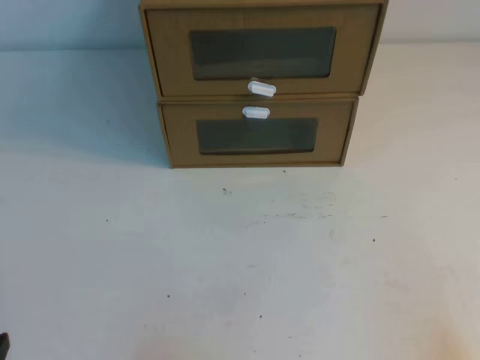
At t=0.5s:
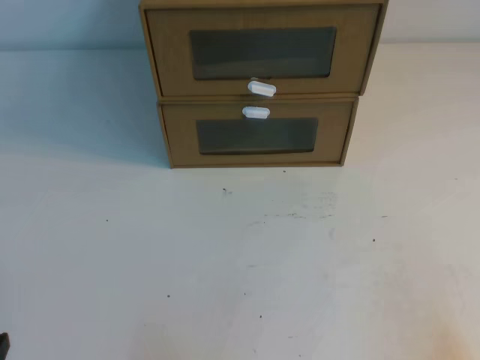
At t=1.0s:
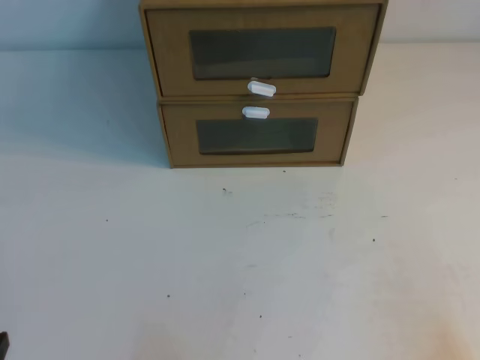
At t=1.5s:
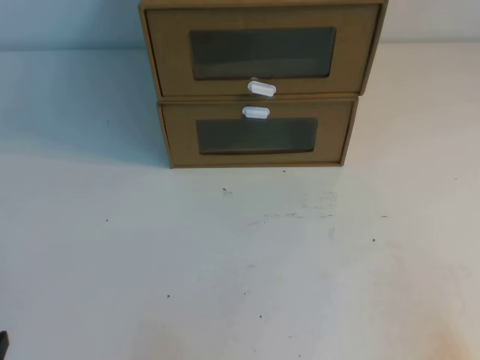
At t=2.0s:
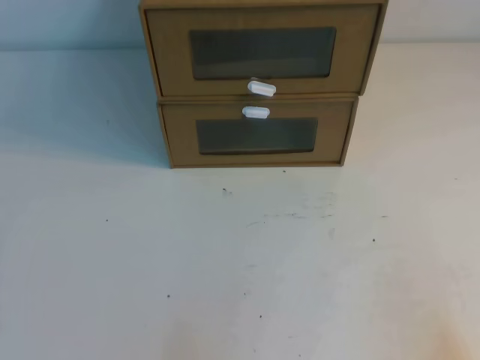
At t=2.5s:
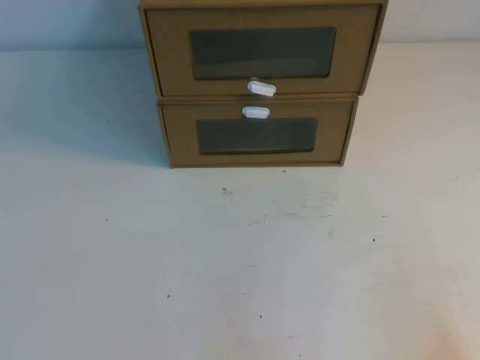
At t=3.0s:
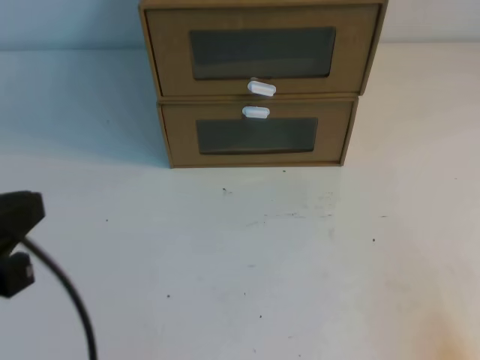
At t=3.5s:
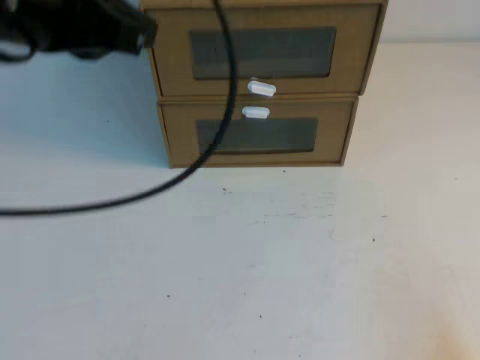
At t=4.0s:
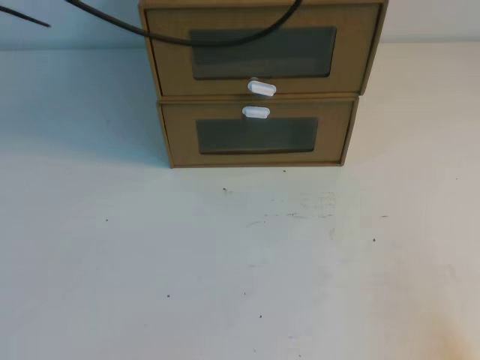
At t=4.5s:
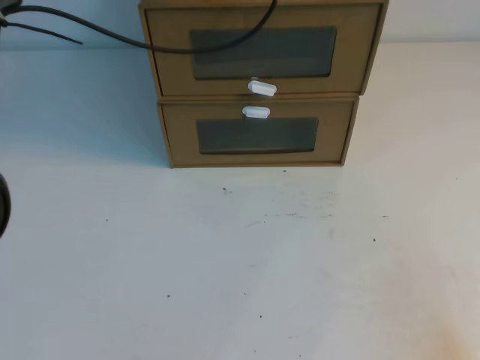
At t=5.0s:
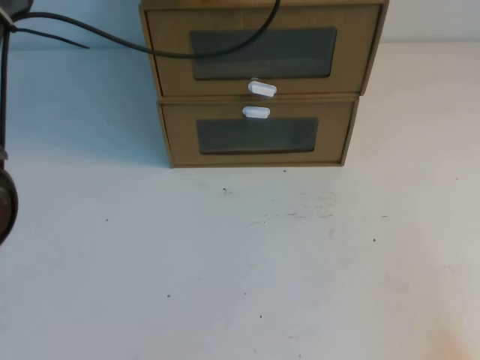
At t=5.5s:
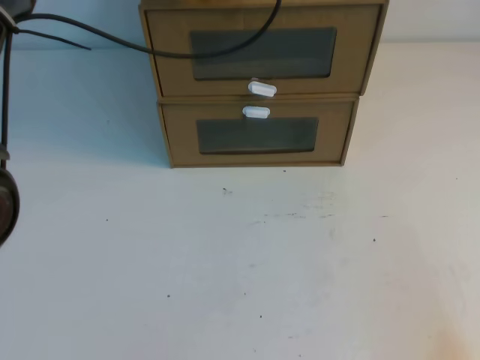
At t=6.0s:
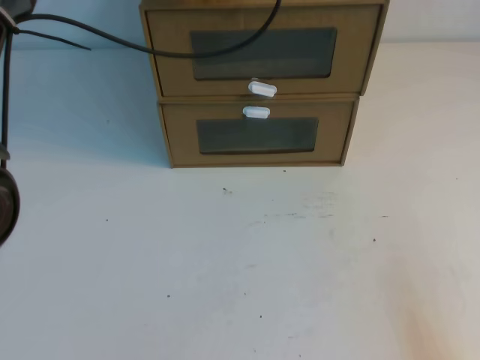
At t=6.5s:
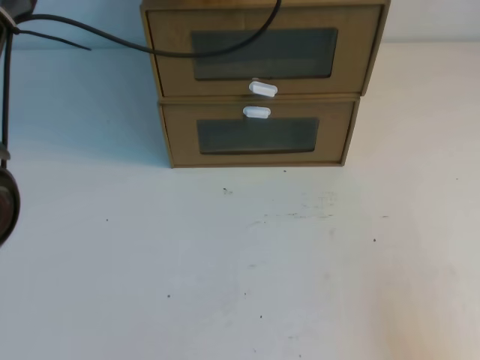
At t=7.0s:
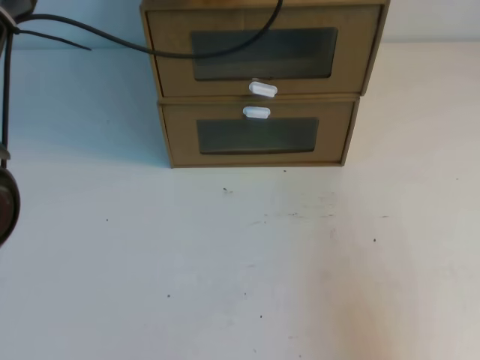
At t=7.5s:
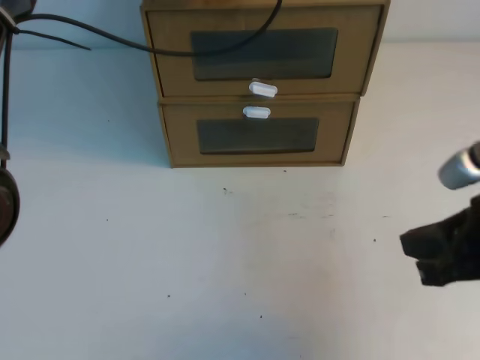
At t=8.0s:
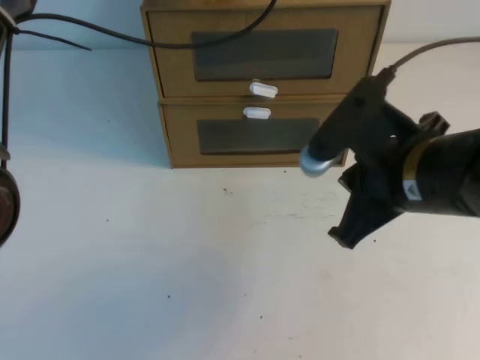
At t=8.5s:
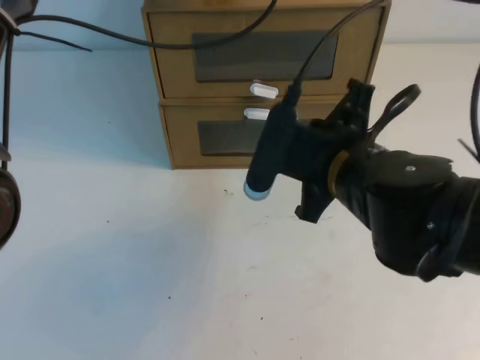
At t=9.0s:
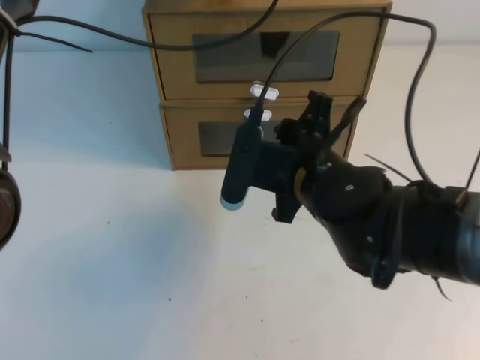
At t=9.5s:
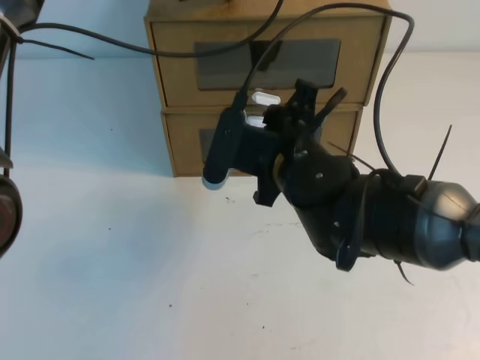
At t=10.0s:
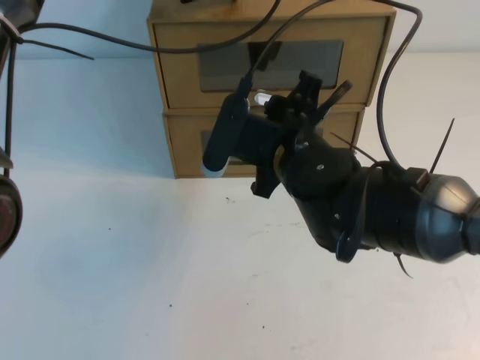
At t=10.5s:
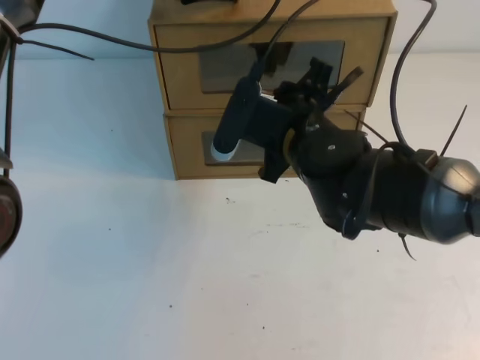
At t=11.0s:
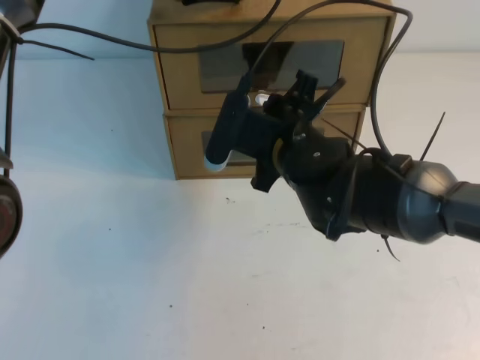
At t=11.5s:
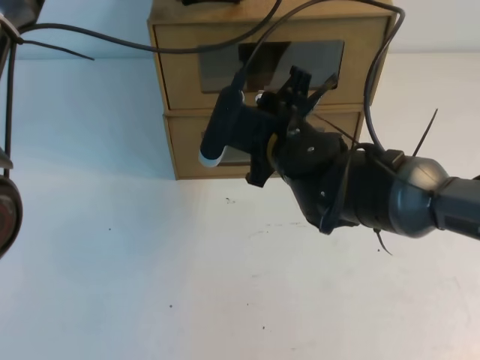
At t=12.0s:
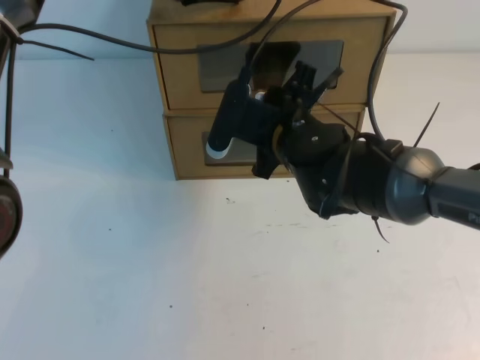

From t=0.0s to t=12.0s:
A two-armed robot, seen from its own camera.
Task of the whole recording: open the shoebox on the table.
From t=2.0s to t=4.0s: The left gripper heads forward, upward and to the right, covering approximately 50 cm.
From t=4.0s to t=6.0s: The left gripper shifts approximately 10 cm forward and downward.
From t=6.0s to t=8.0s: The right gripper heads forward, to the left and upward, covering roughly 25 cm.
From t=8.0s to t=10.0s: The right gripper is displaced to the left and forward by about 15 cm, and opens its fingers.
From t=10.0s to t=12.0s: The grippers stay close to where they were, moving slightly.

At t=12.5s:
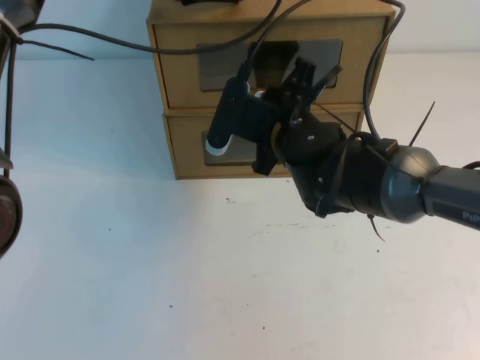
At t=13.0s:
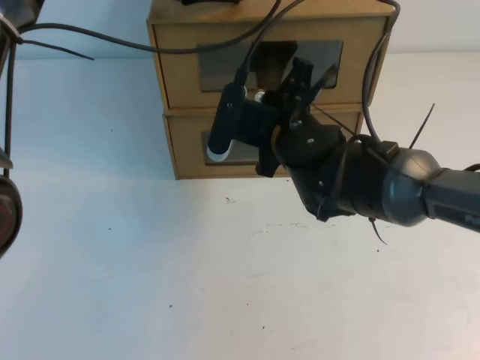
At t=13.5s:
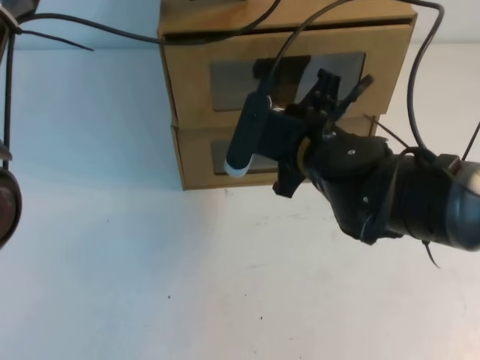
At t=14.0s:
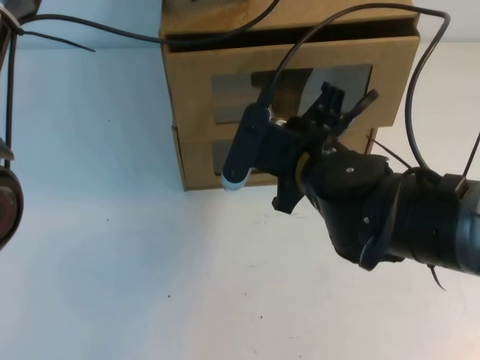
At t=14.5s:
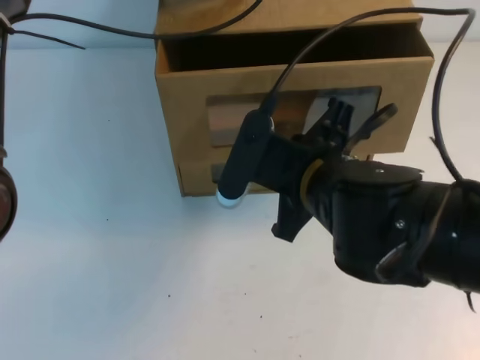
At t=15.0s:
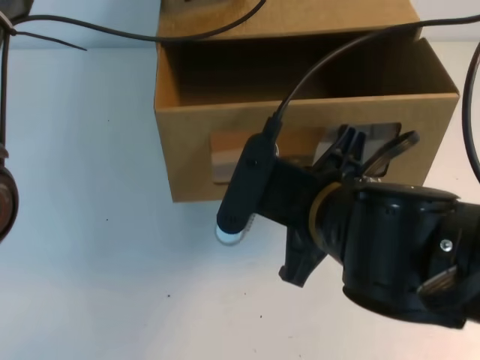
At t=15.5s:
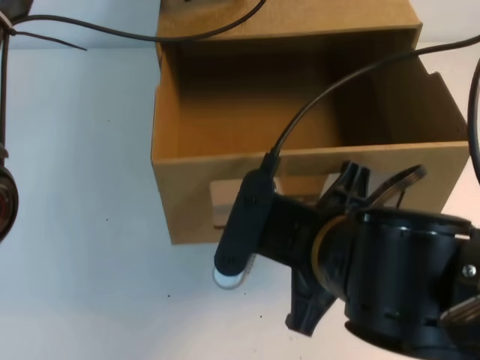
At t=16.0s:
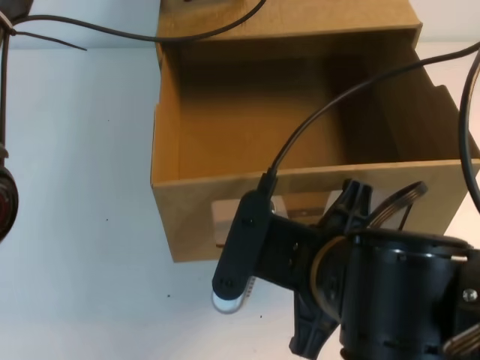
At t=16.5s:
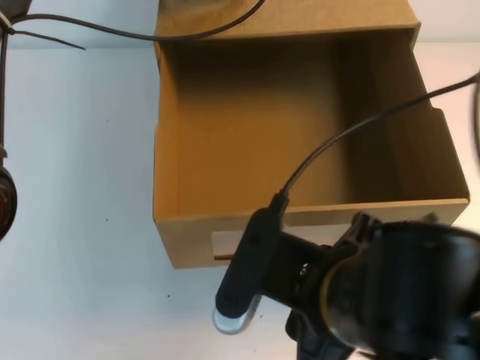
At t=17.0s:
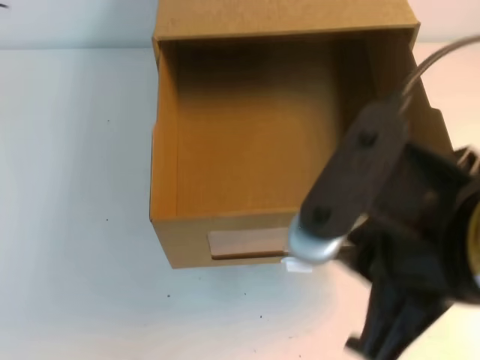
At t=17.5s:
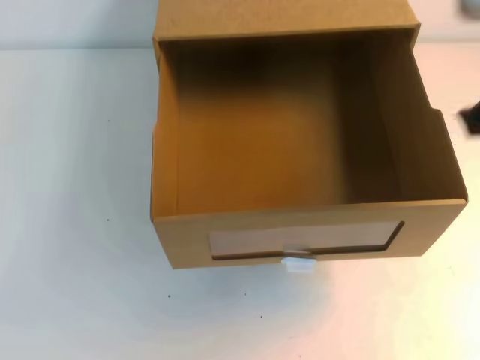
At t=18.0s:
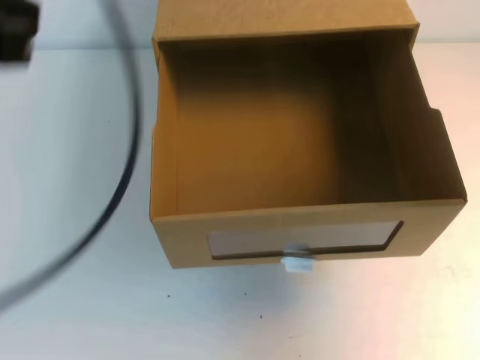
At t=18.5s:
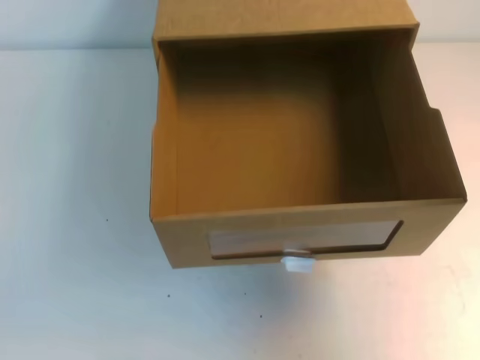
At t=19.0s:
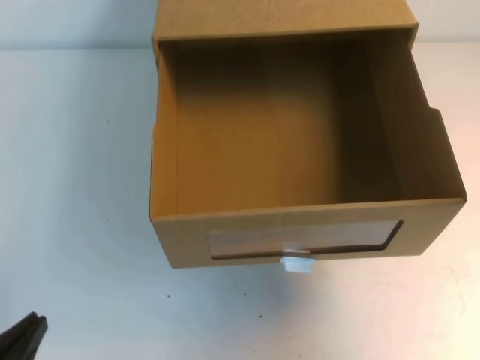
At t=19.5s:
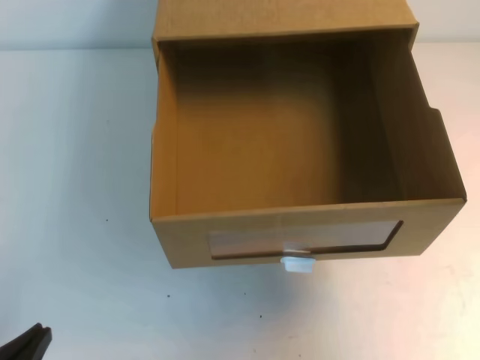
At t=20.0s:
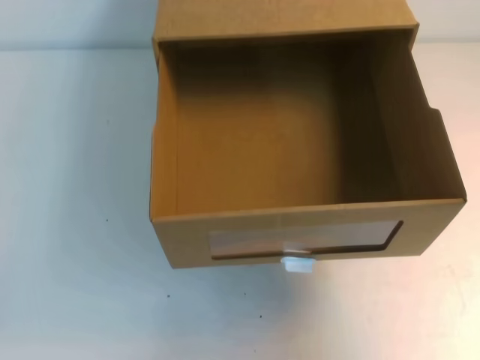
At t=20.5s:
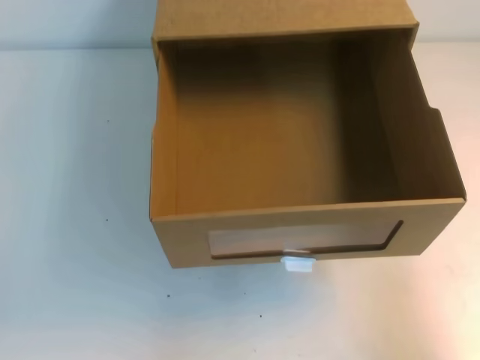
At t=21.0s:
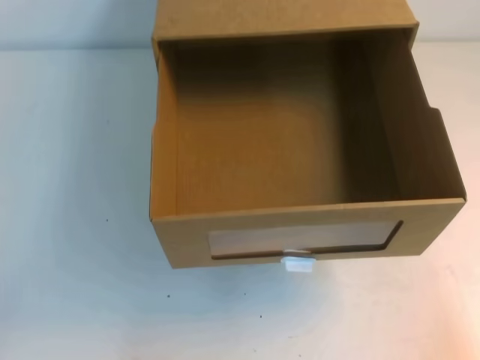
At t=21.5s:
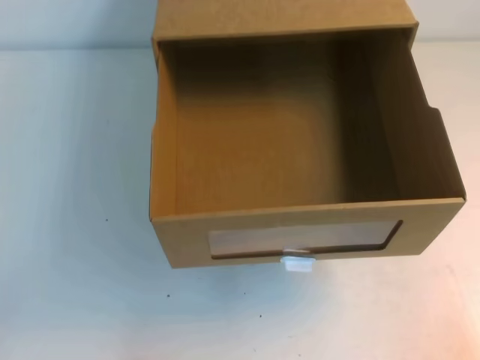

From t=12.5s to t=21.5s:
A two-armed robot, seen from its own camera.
Task of the whole recording: open the shoebox on the table.
Step, from t=12.5s to t=21.5s: Open the shoe box.
From t=12.5s to t=14.5s: The right gripper heads backward, covering roughly 10 cm.
From t=14.5s to t=17.0s: The right gripper moves backward and upward, some 15 cm, and opens; the left gripper heads upward and backward, covering some 10 cm.
From t=17.0s to t=19.5s: The left gripper travels backward and downward by about 50 cm, while the right gripper goes some 15 cm to the right, and closes.
From t=19.5s to t=21.5s: The right gripper travels downward and backward by about 25 cm.

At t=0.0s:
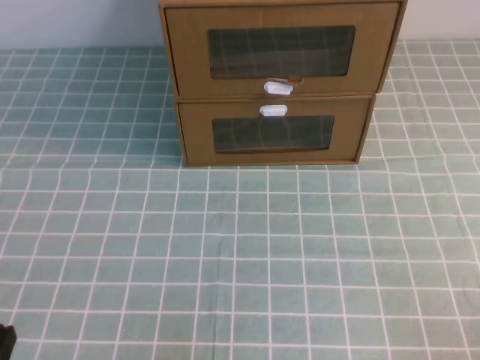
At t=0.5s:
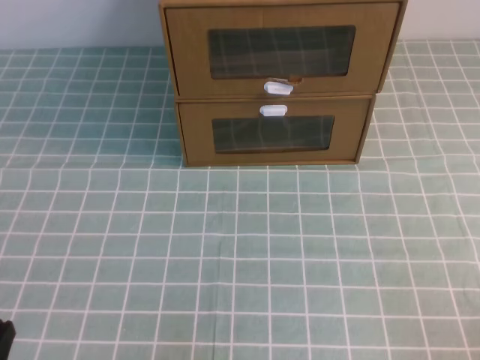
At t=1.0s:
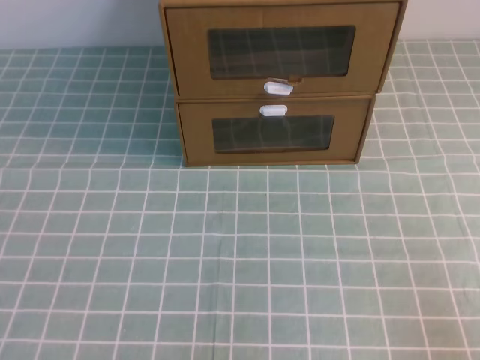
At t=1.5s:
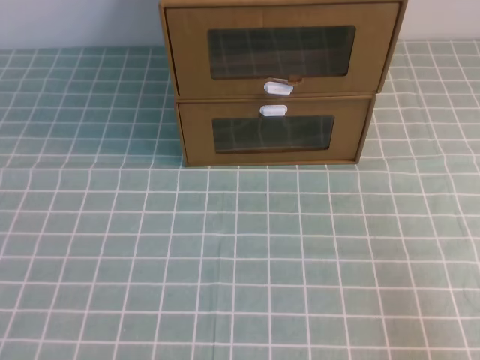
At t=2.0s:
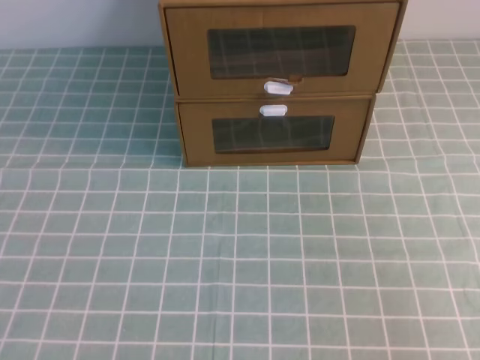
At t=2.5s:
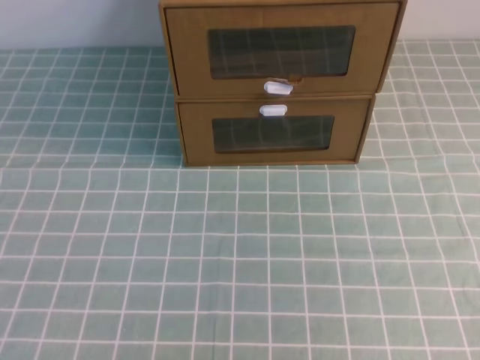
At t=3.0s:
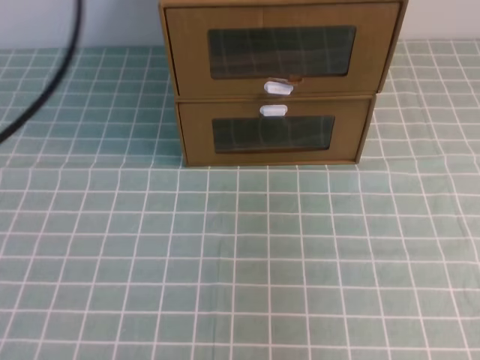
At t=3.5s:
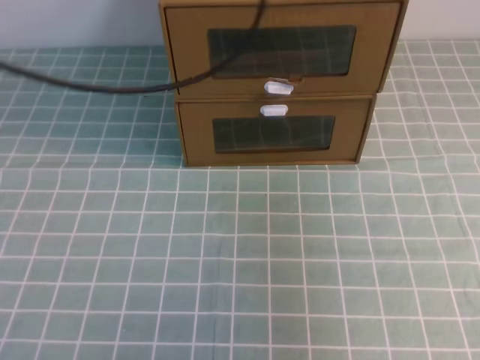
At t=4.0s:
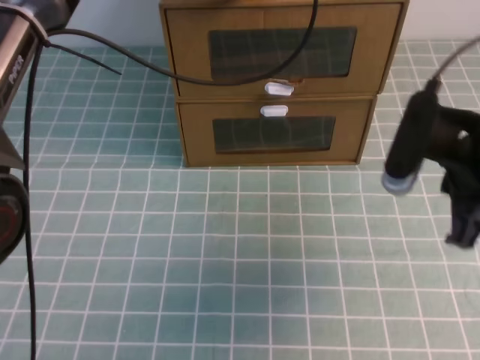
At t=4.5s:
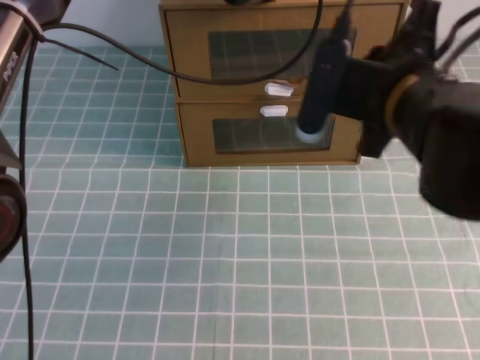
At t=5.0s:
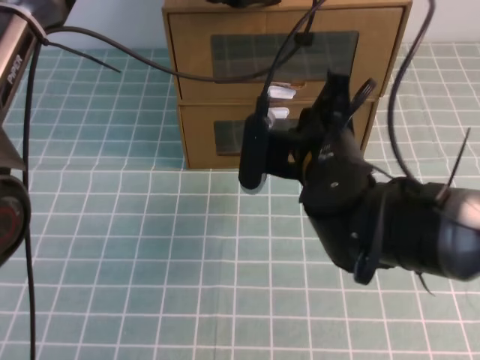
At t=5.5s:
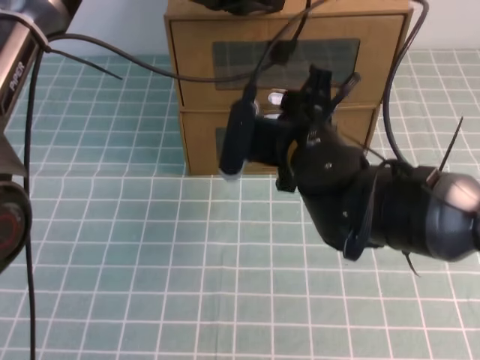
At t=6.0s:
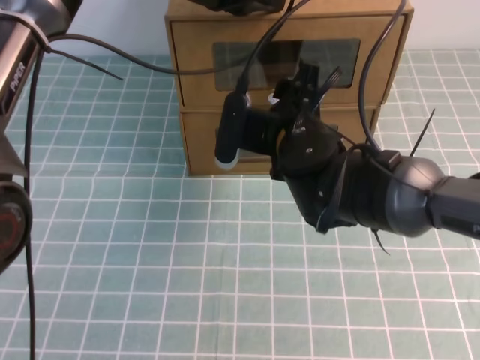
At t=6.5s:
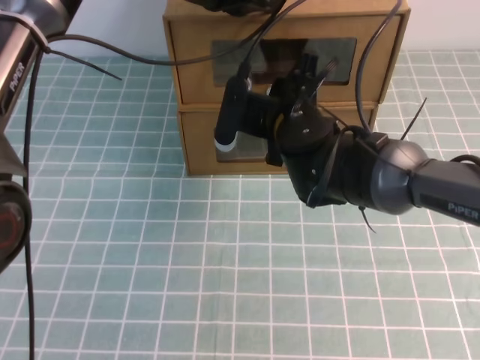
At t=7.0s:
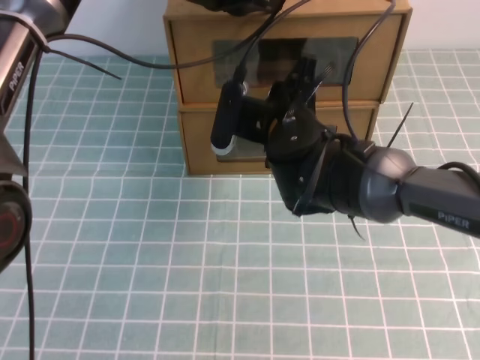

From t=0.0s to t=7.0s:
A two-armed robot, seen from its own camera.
Task of the whole recording: open the shoebox on the cyan tablecloth.
From t=2.0s to t=3.5s: The right gripper goes some 20 cm forward and upward. Meanwhile the left gripper heads forward, upward and to the right, covering about 40 cm.
From t=3.5s to t=5.0s: The left gripper is displaced forward, to the right and downward by some 10 cm. The right gripper is displaced to the left, downward and forward by approximately 25 cm.
From t=5.0s to t=7.0s: The right gripper moves forward, some 5 cm, and opens and closes again.
